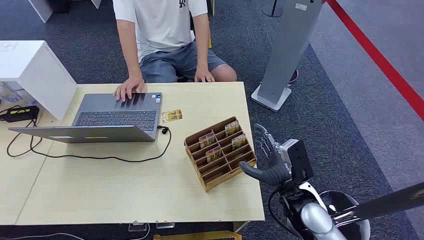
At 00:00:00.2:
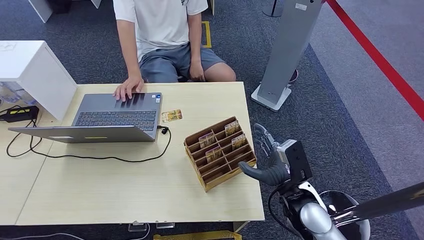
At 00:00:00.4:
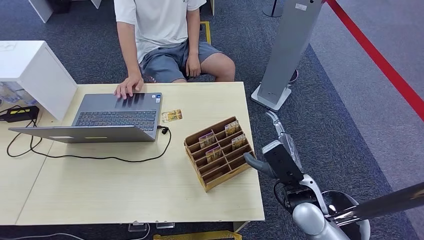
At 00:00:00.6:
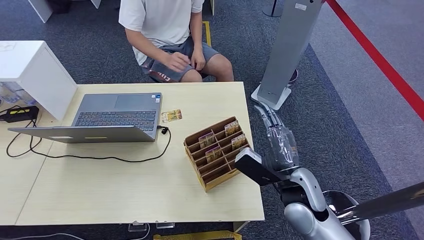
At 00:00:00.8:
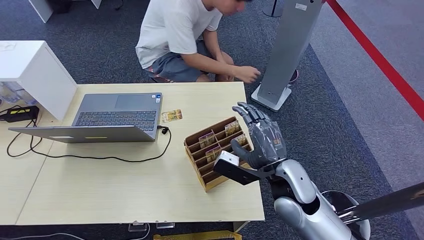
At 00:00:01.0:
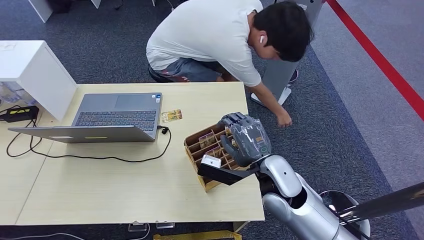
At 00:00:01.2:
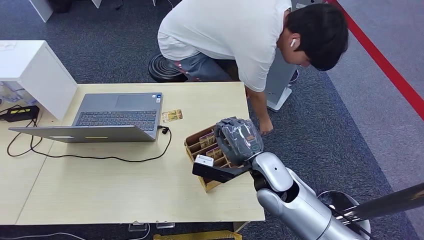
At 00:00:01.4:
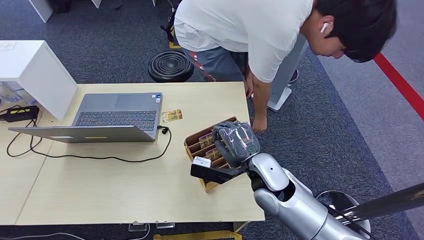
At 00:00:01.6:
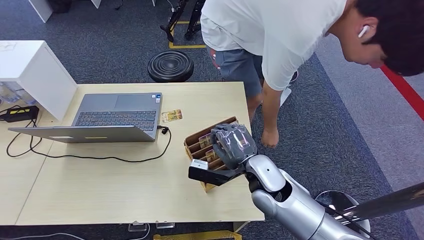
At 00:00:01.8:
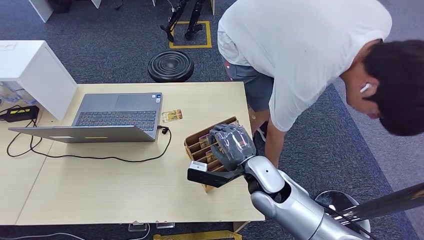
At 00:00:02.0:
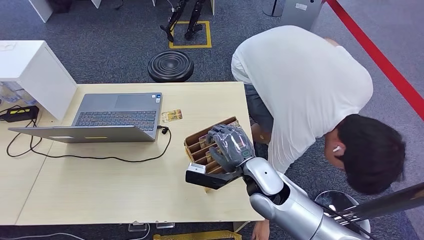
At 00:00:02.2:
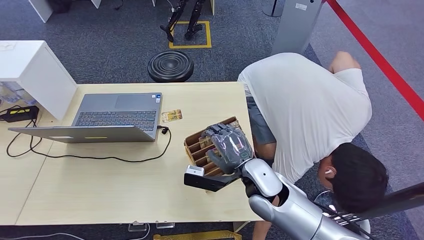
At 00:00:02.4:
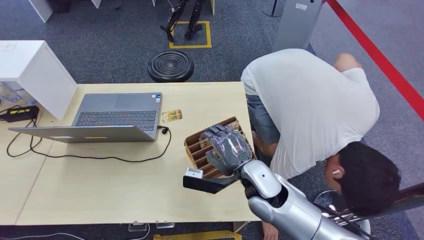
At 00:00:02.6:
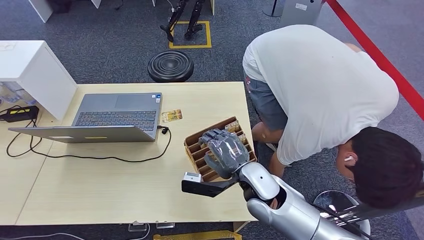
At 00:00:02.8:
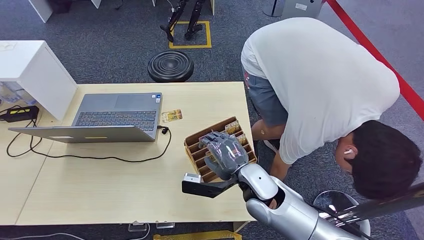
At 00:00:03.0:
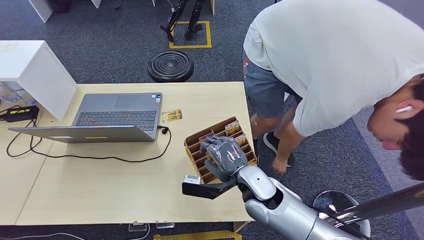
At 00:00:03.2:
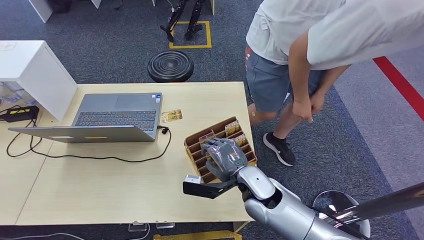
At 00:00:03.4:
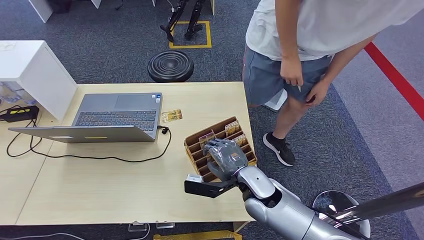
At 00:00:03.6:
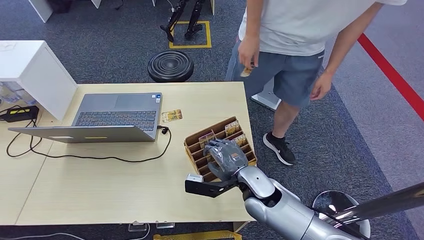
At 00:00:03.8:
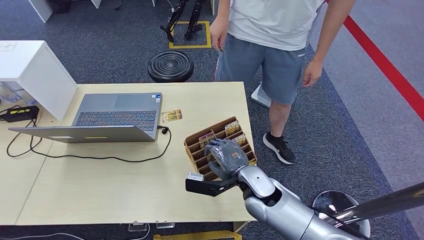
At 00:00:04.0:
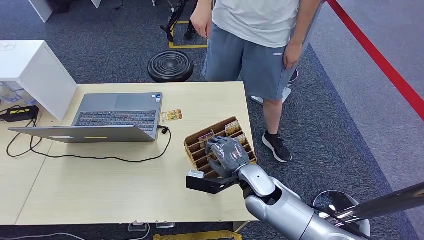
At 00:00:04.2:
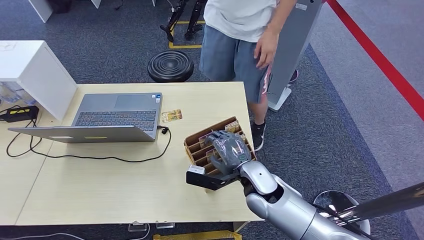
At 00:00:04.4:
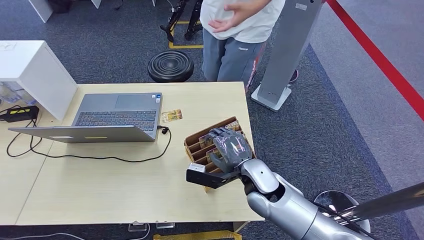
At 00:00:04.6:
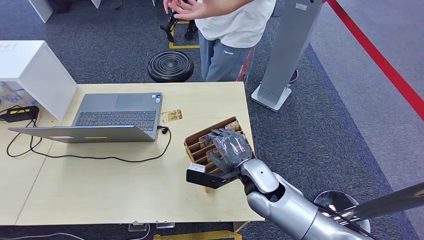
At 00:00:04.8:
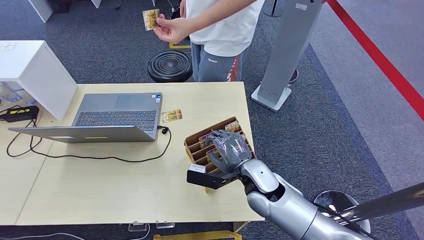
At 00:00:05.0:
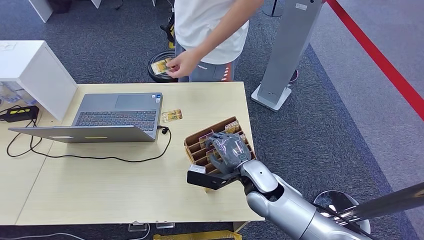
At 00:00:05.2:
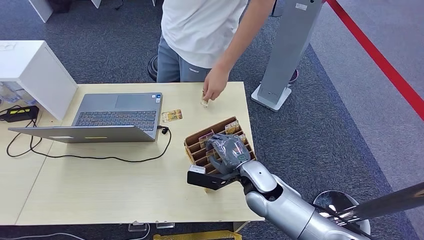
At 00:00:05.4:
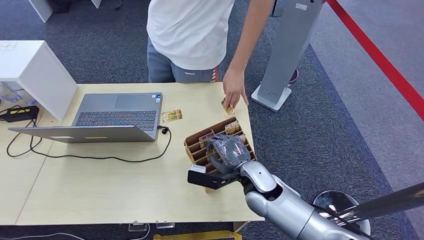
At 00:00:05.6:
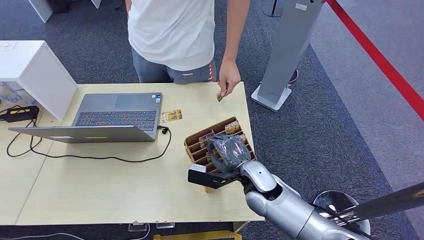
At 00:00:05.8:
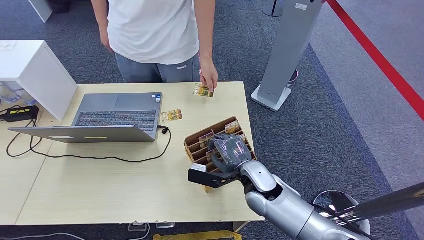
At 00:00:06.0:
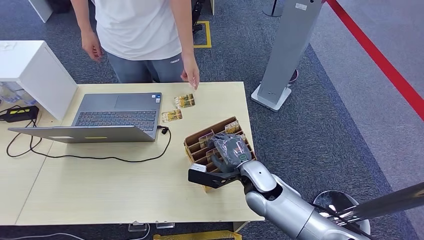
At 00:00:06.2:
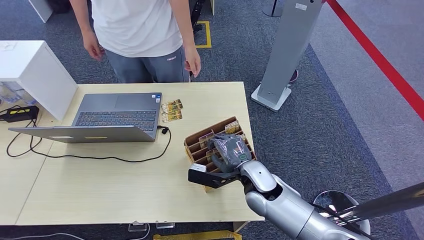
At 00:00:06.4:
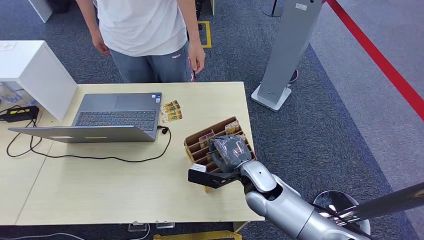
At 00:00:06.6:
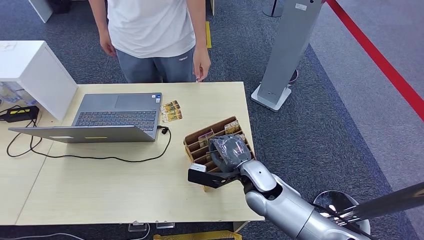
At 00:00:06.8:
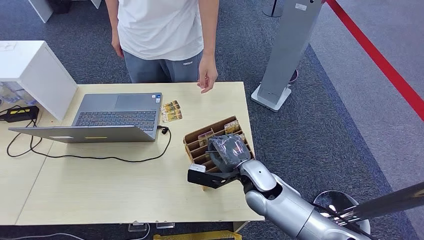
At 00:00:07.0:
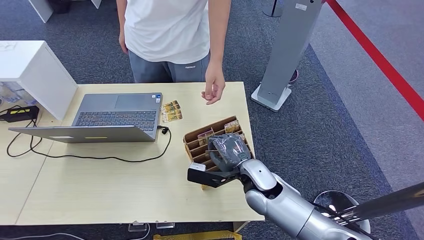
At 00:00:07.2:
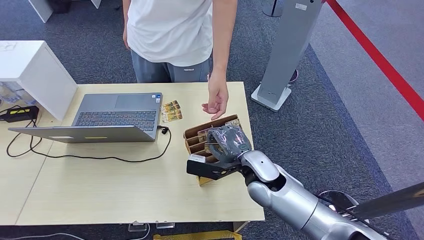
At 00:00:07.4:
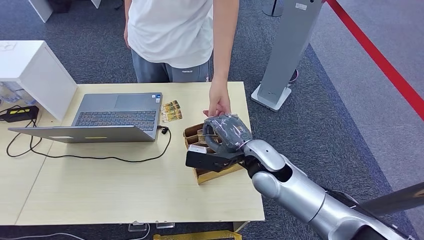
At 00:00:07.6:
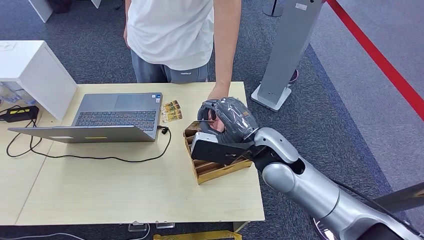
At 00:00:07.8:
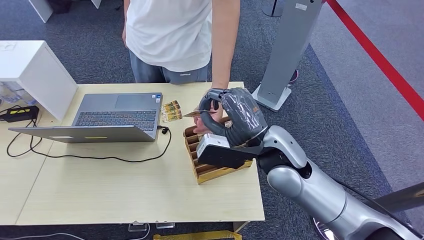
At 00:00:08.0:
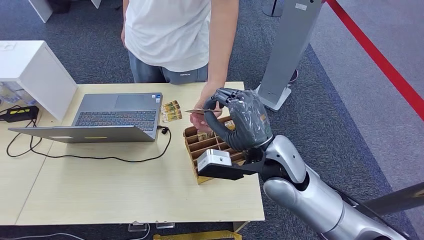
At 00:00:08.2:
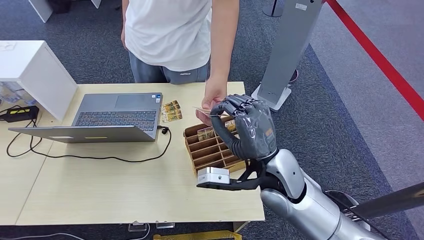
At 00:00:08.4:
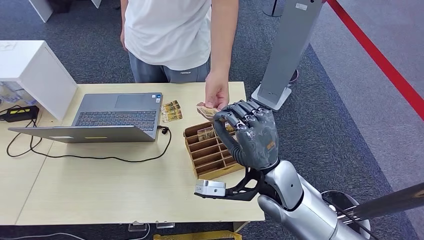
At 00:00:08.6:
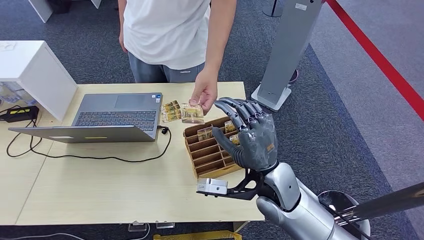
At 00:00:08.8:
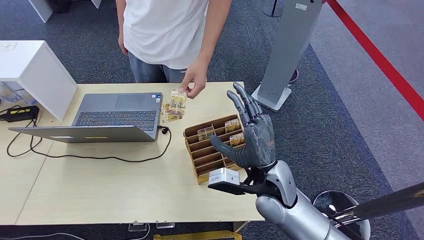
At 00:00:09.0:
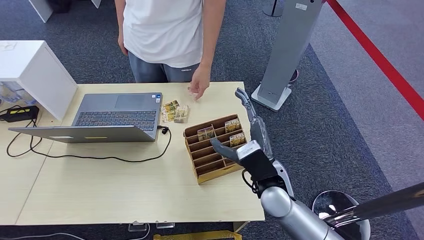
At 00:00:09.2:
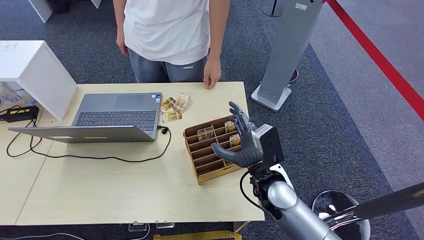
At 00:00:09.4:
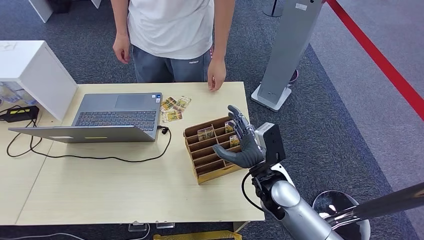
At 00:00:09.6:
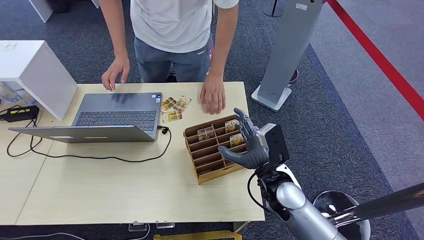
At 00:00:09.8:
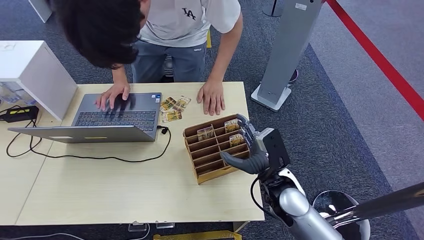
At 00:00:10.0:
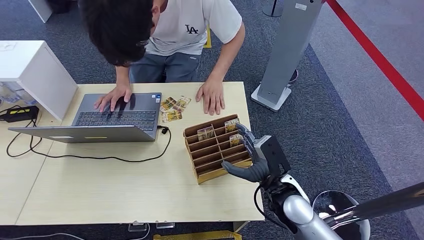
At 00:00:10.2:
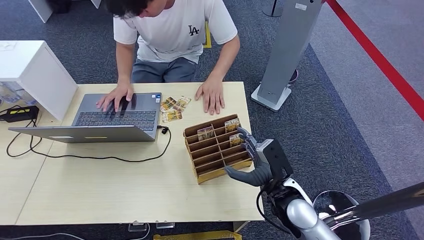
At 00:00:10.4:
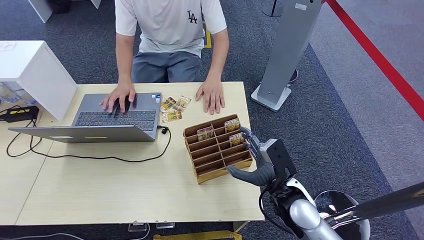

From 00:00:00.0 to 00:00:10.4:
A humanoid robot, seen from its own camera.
Step, from 00:00:00.0 to 00:00:07.8: Pick up the room card from the card holder.
Step, from 00:00:08.0 to 00:00:10.4: Hand the room card to the target.
From 00:00:04.4 to 00:00:06.0: There are only small adjustments of the hands.
From 00:00:07.4 to 00:00:09.0: The right hand reaches approximately 5 cm upward, then returns.
From 00:00:09.0 to 00:00:10.4: The right hand travels to the right by some 5 cm.
